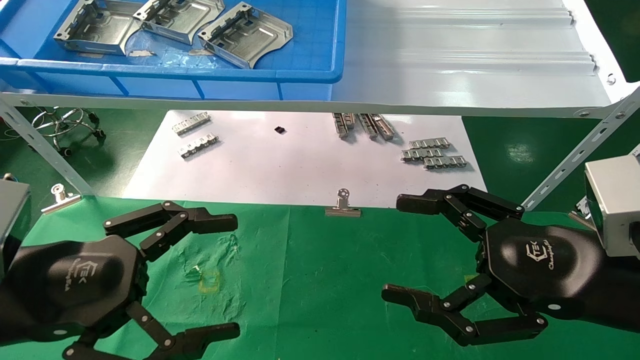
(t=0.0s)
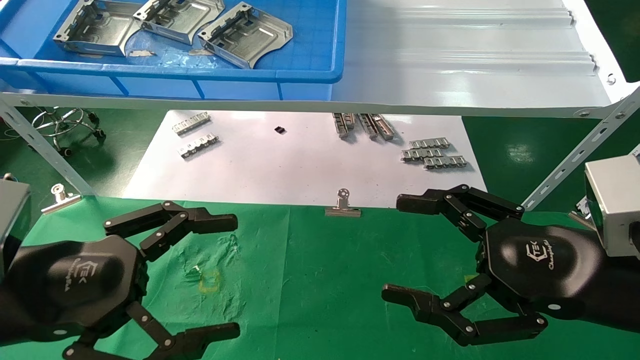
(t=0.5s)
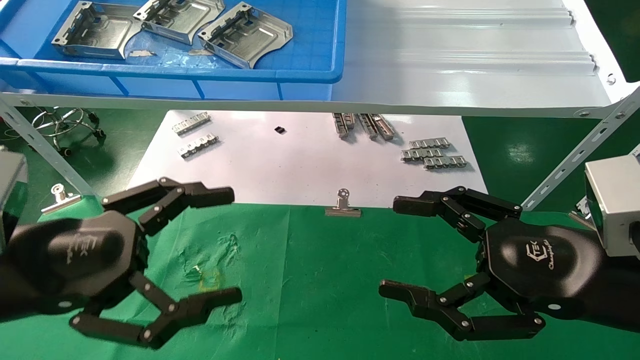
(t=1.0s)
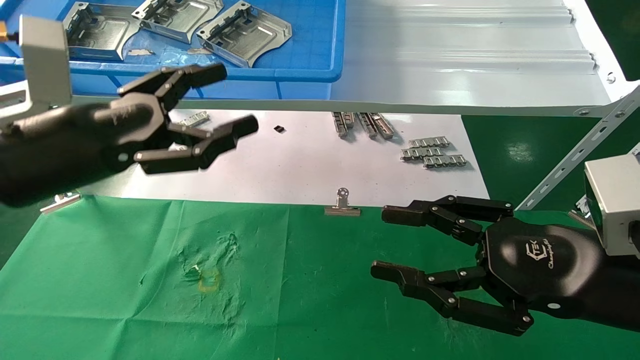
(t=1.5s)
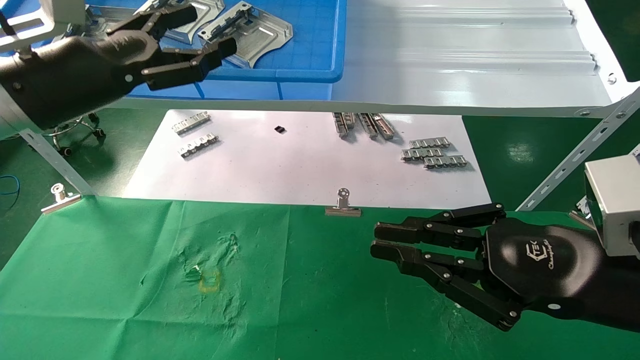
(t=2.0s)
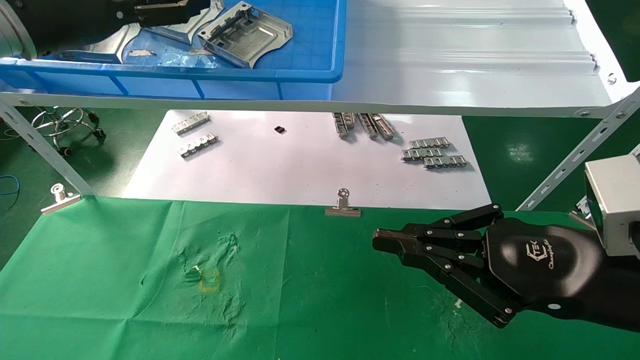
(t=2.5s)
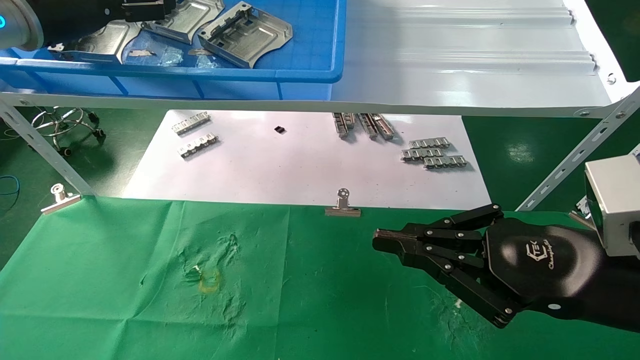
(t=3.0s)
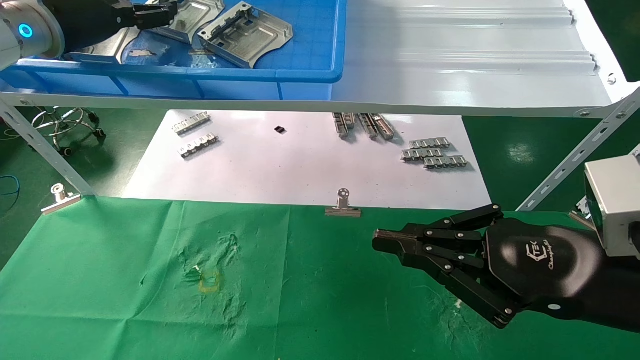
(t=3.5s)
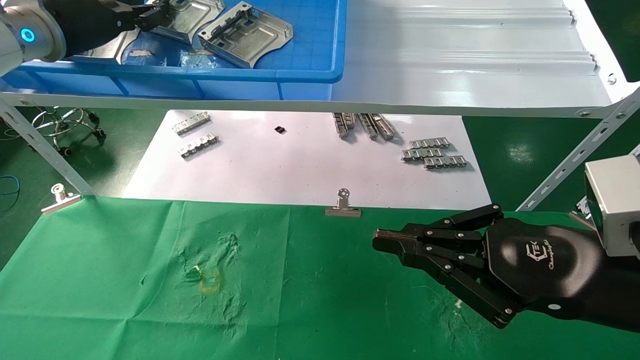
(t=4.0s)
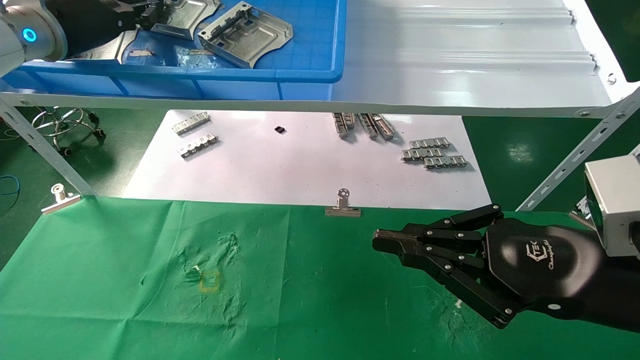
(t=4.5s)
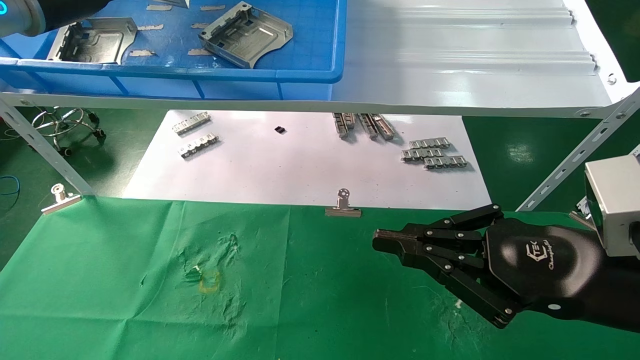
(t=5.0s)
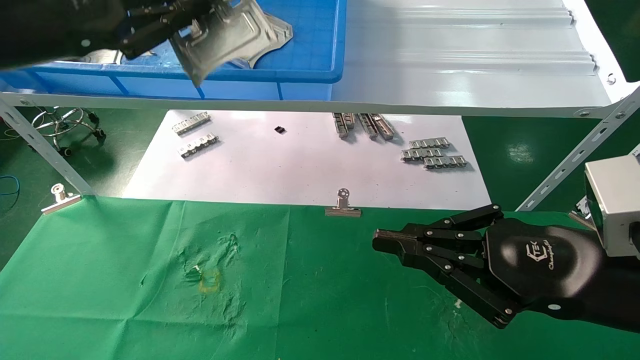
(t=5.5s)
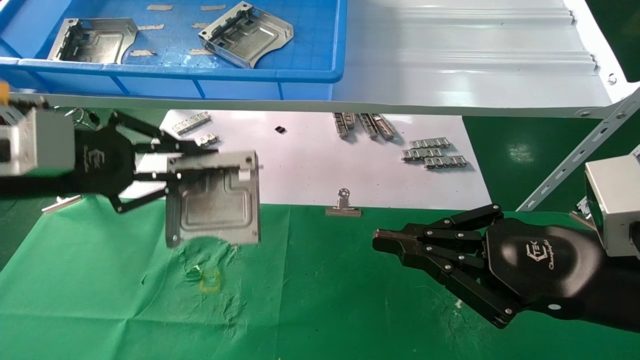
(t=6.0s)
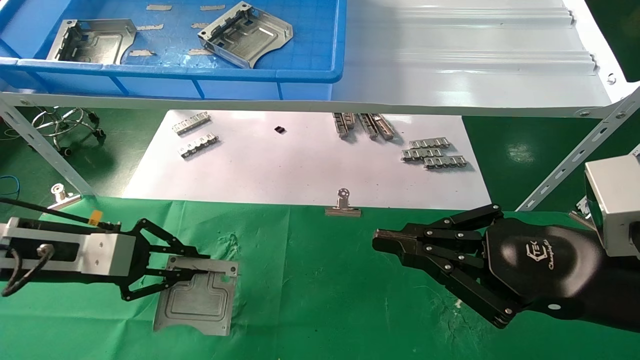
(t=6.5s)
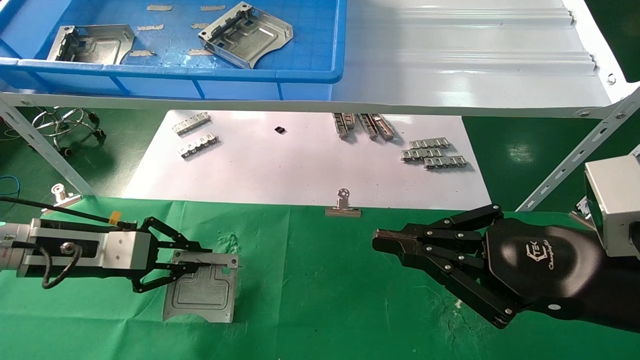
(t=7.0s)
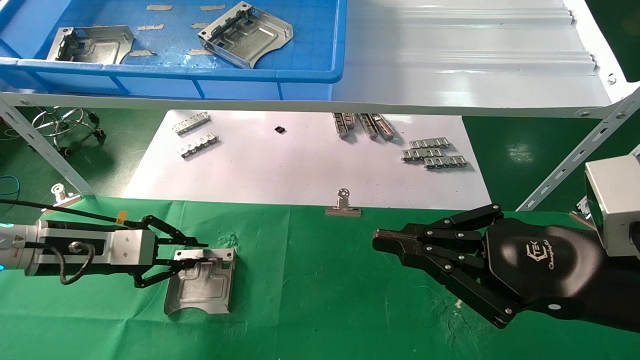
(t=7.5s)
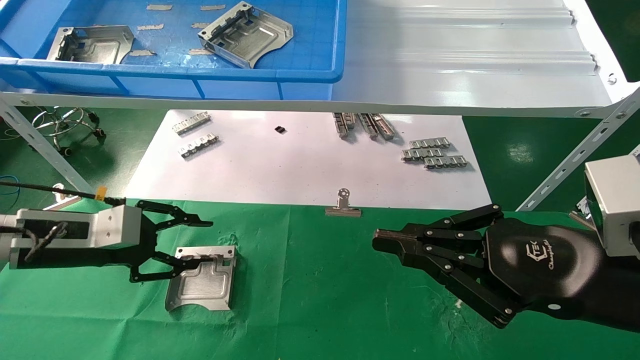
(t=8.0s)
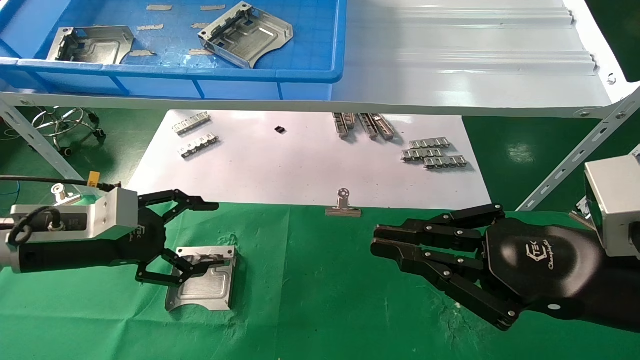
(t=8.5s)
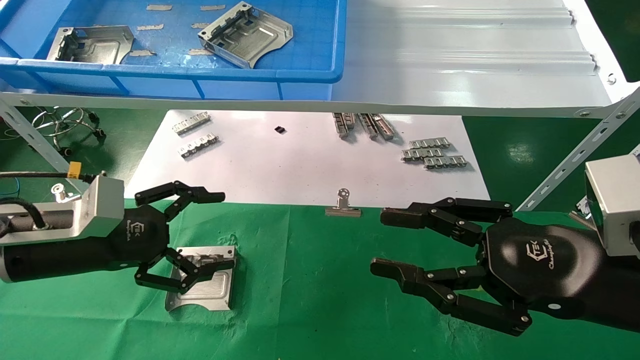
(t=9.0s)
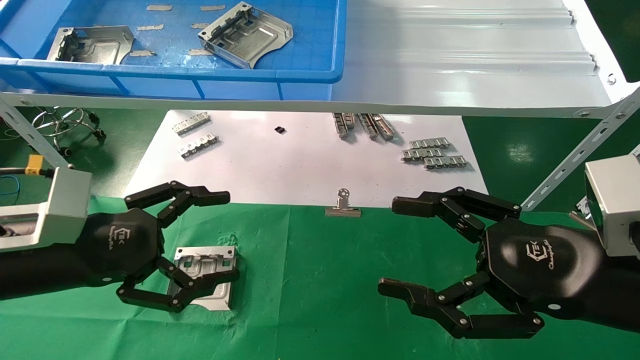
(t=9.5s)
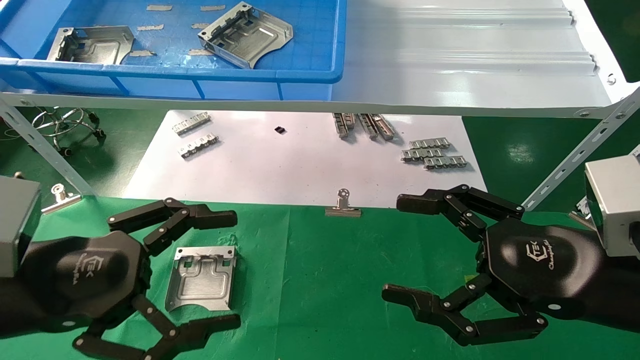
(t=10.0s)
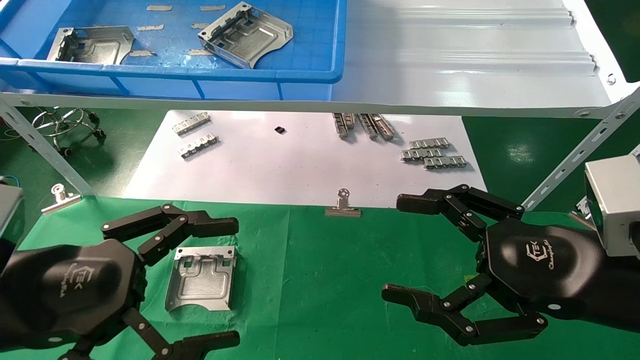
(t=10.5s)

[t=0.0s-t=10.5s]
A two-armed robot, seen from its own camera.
Task of the whole recording: use the mechanical arm to pick up the parts and place them on the table.
Step, t=1.0s to t=4.0s: Pick up the hard drive bracket from the feeding area.
Step, t=4.5s to t=7.5s: Place the hard drive bracket into the box.
t=0.0s to t=2.0s: The right gripper closes. The left gripper shifts approximately 20 cm forward and upward.
t=2.0s to t=4.0s: The left gripper goes some 10 cm forward and upward, and closes its fingers.
t=4.0s to t=6.5s: The left gripper goes some 25 cm downward and backward, and closes up.
t=6.5s to t=8.5s: The left gripper opens its fingers.
t=8.5s to t=10.5s: The right gripper opens. The left gripper goes some 15 cm backward.

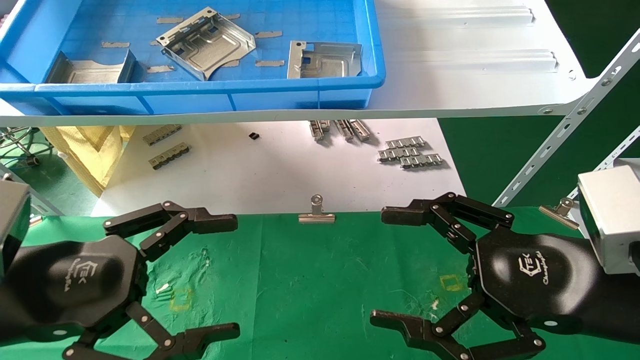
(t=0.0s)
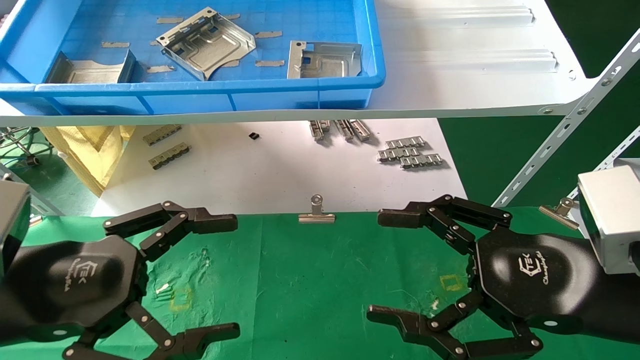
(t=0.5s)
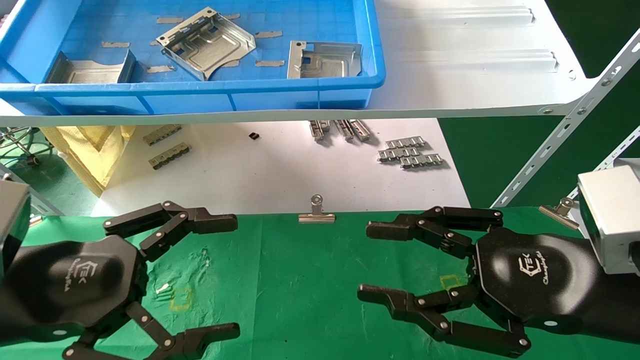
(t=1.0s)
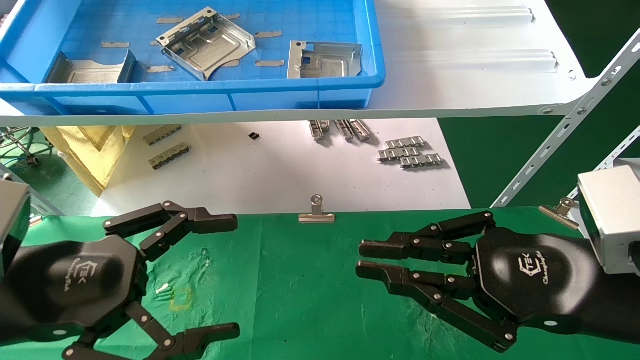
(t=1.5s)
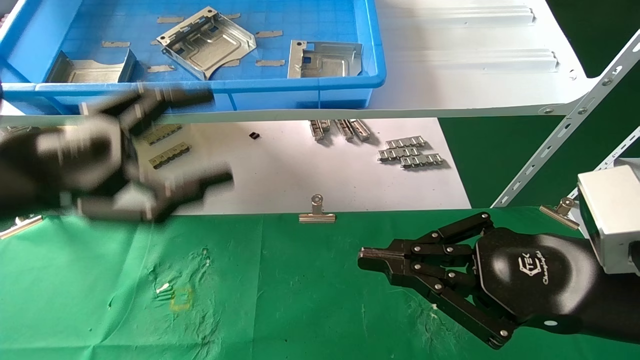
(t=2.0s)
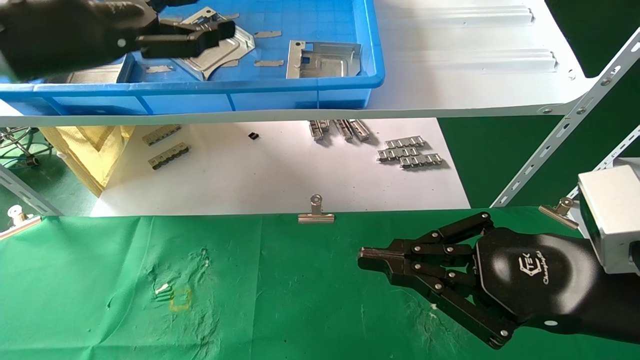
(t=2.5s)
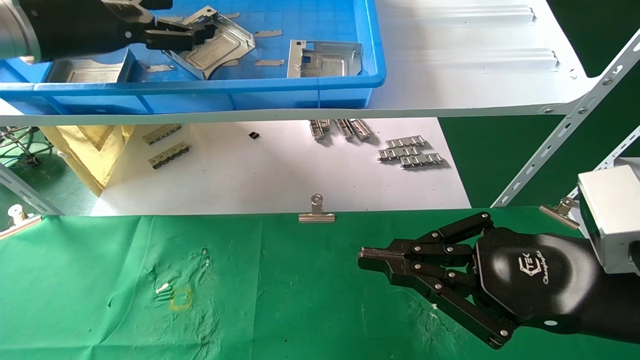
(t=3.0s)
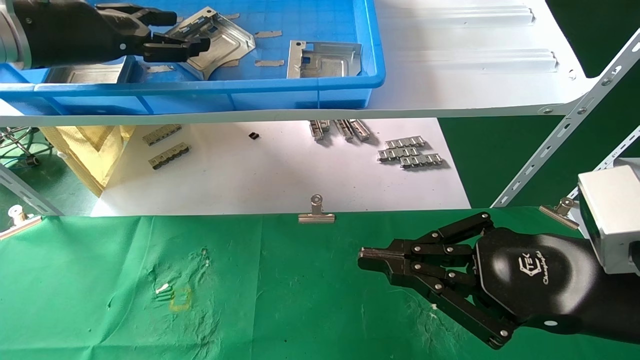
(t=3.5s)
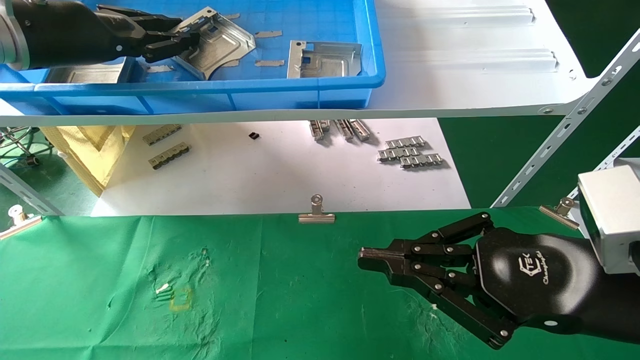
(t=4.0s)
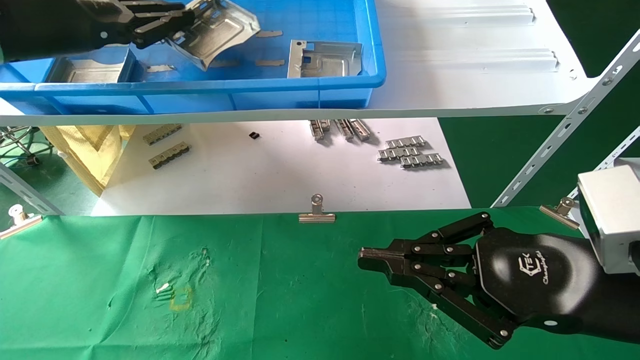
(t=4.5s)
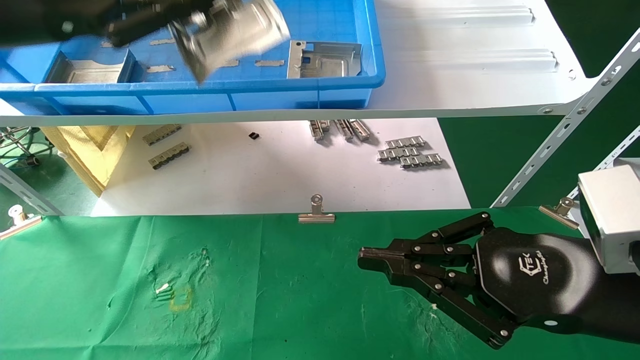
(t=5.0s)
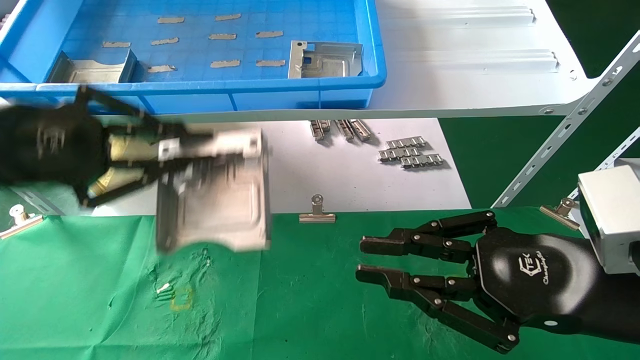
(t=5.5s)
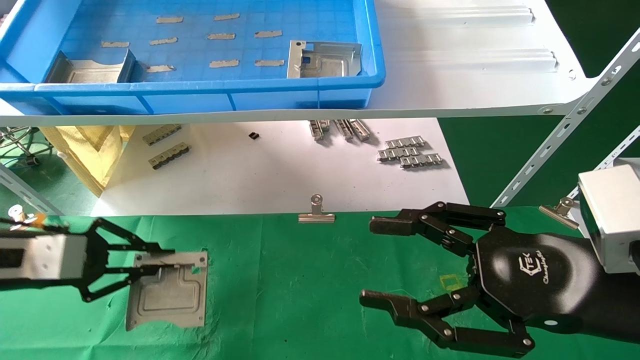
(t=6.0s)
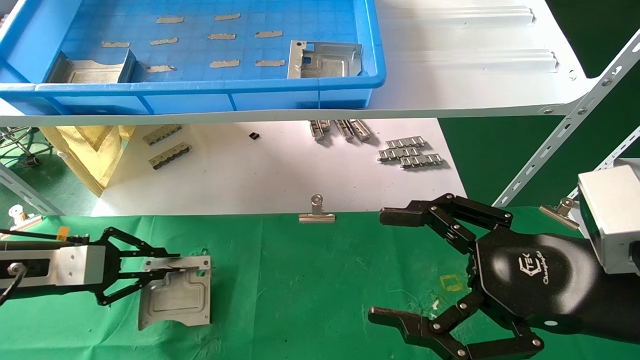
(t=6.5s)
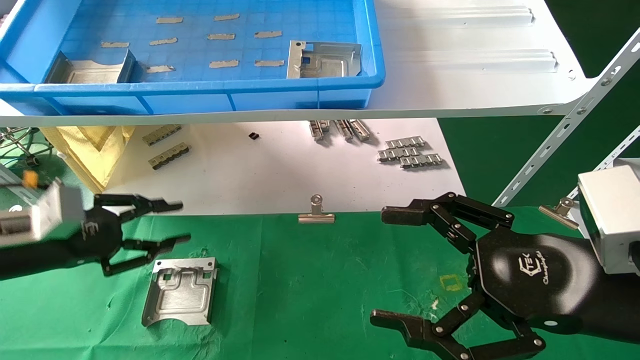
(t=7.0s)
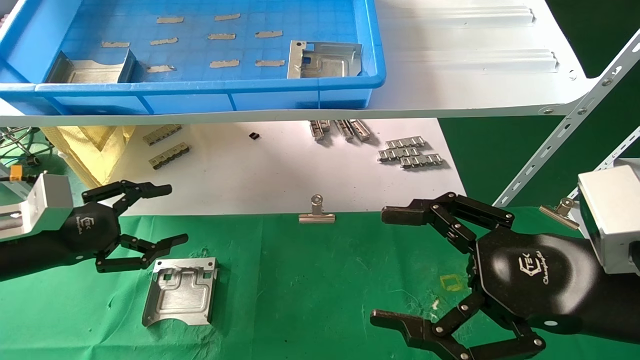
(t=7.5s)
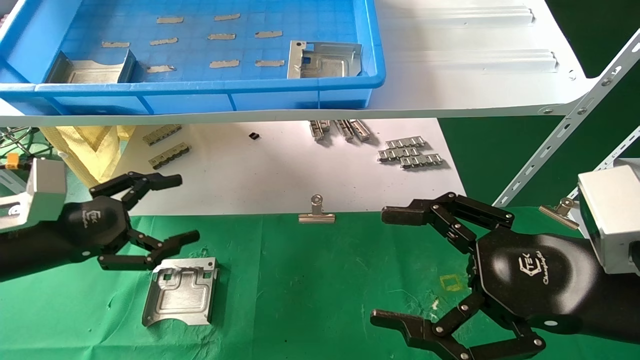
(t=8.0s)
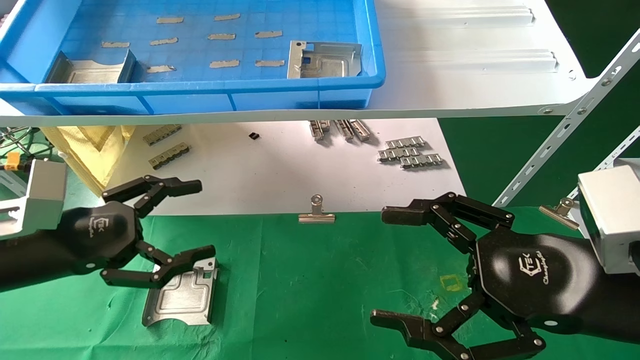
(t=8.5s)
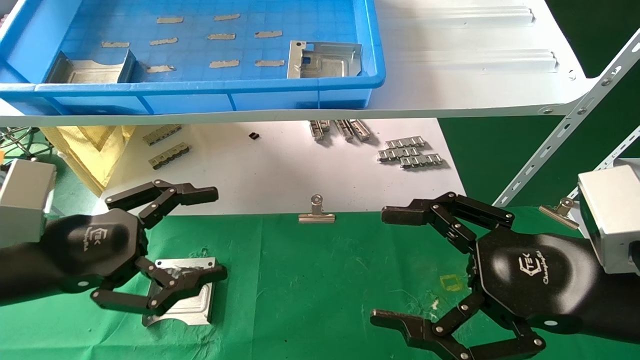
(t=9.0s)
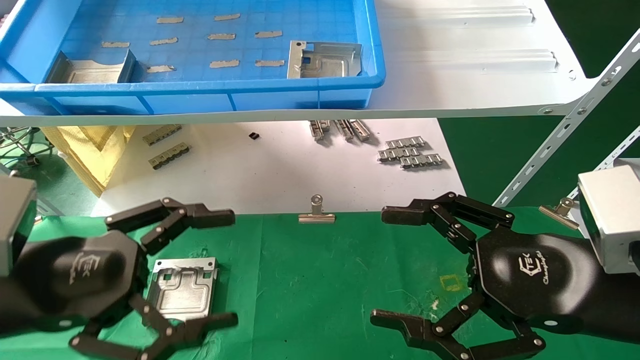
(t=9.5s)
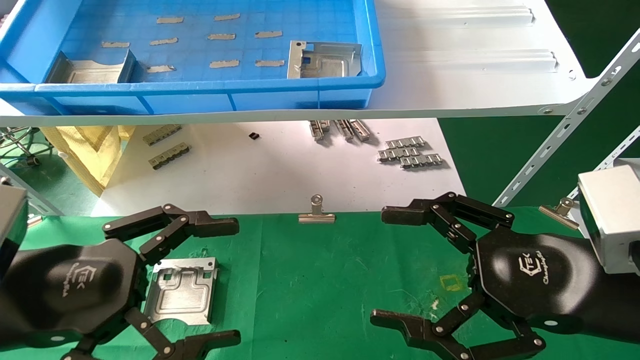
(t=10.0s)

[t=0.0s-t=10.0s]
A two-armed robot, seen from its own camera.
Task of the whole recording: use the mechanical arm to pick up the parts and place them on the table.
Step, t=1.5s to t=4.5s: Pick up the hard drive bracket from the feeding area.
Step, t=5.0s to t=6.5s: Place the hard drive bracket into the box.
t=0.0s to t=2.0s: The right gripper closes up. Meanwhile the left gripper moves upward, some 10 cm.
t=2.0s to t=4.0s: The left gripper heads forward and upward, covering roughly 20 cm, and closes up.
t=4.0s to t=6.0s: The right gripper opens, while the left gripper moves downward, some 20 cm.
t=6.0s to t=8.0s: The right gripper opens its fingers. The left gripper opens its fingers.
t=8.0s to t=10.0s: The left gripper goes some 15 cm backward and to the right.
